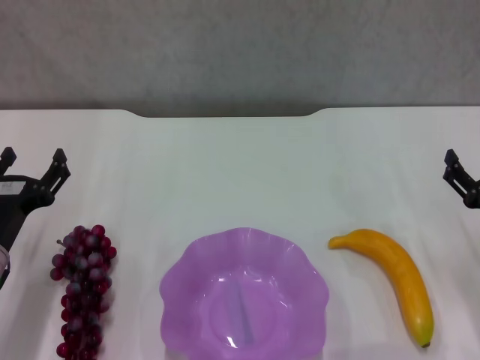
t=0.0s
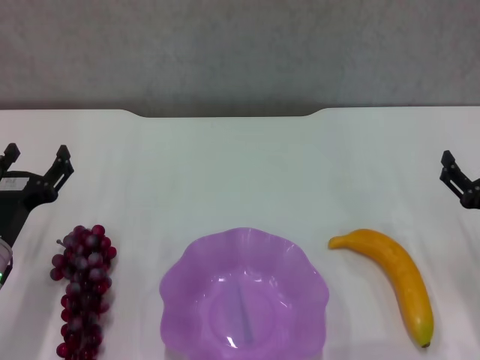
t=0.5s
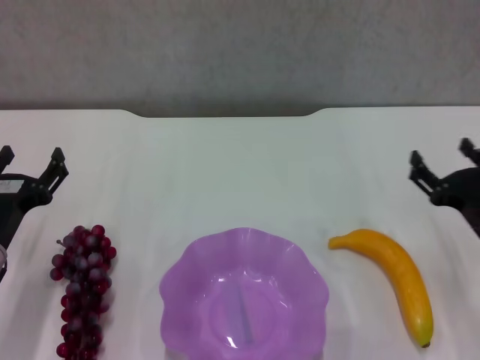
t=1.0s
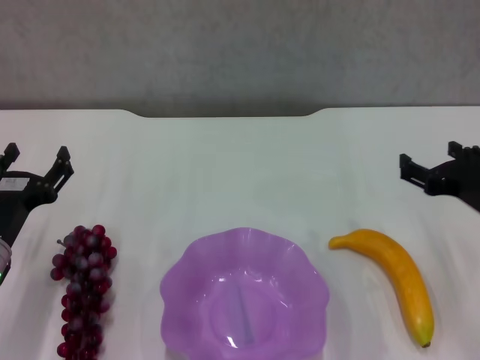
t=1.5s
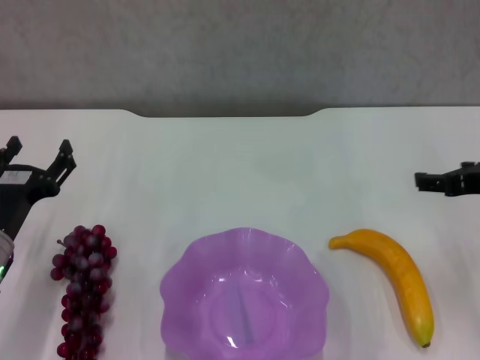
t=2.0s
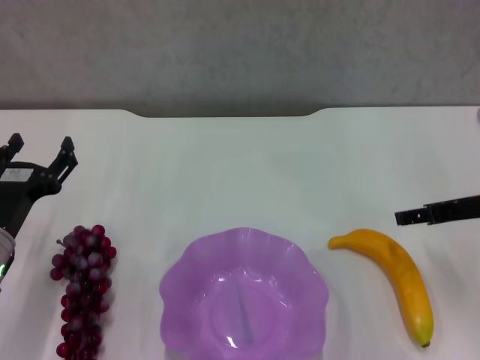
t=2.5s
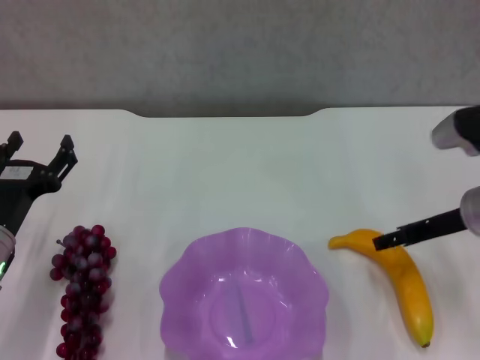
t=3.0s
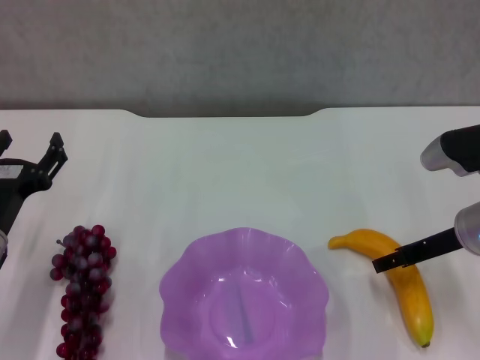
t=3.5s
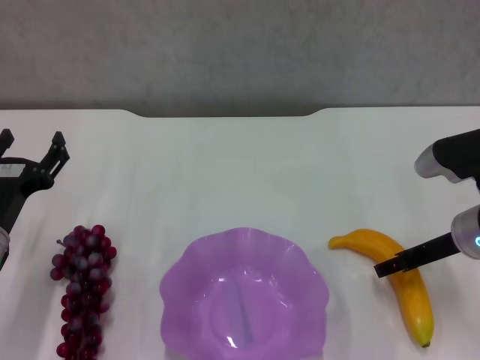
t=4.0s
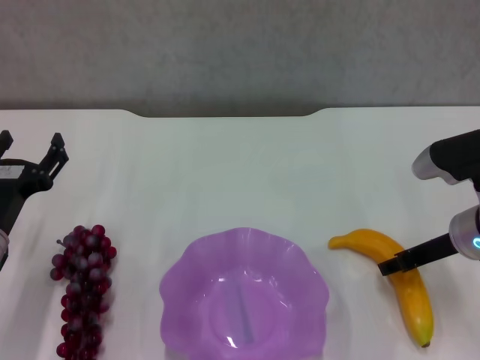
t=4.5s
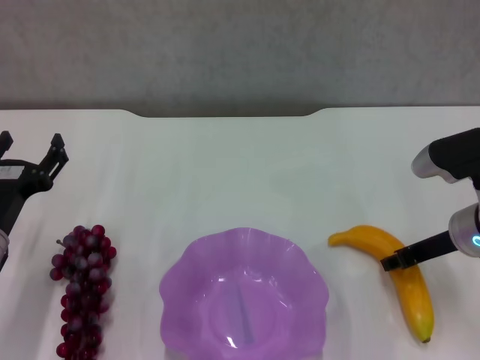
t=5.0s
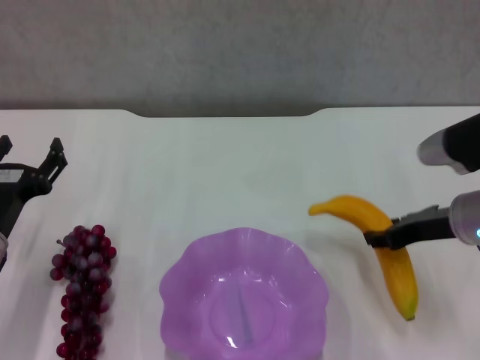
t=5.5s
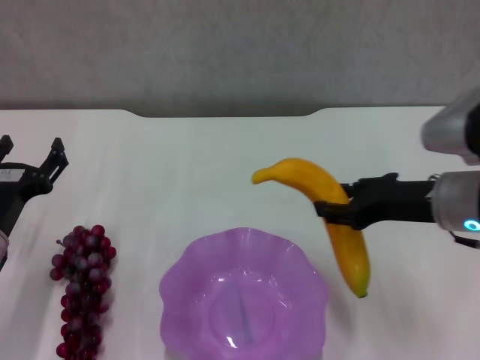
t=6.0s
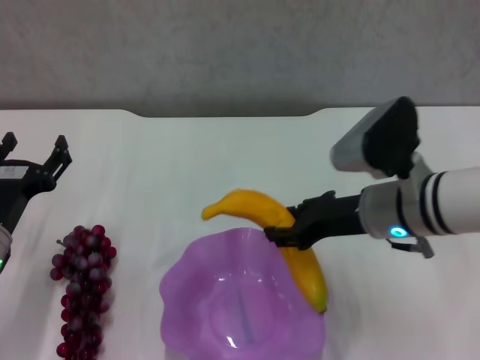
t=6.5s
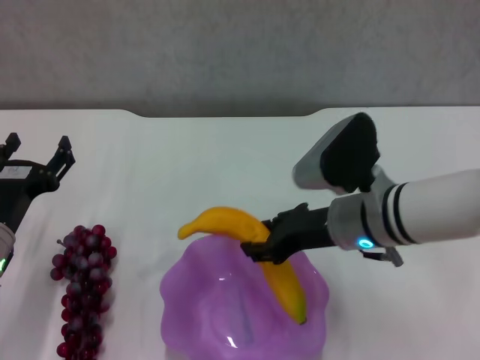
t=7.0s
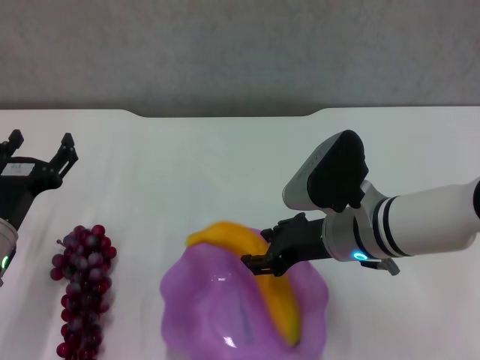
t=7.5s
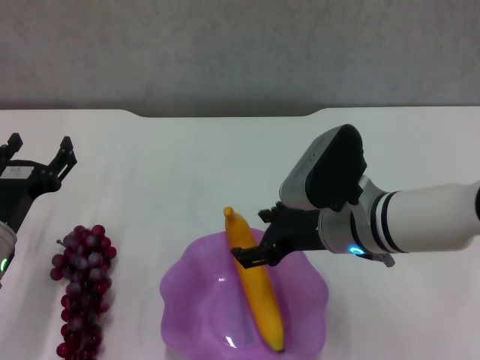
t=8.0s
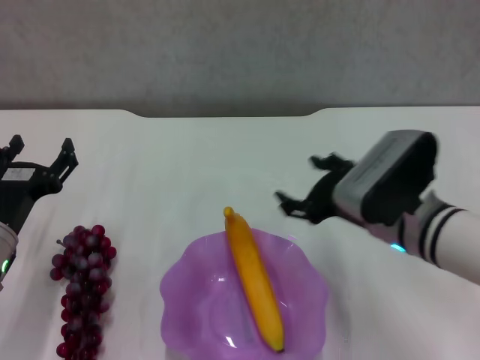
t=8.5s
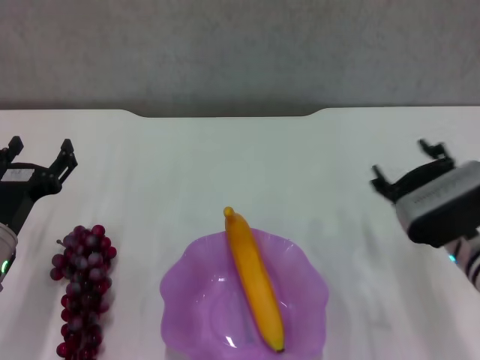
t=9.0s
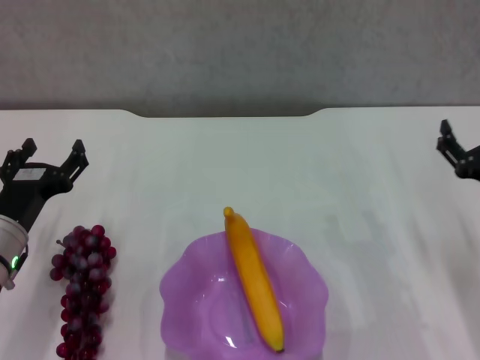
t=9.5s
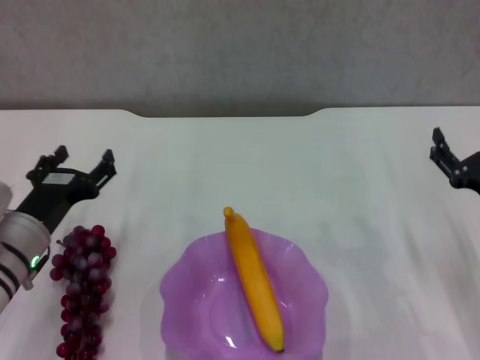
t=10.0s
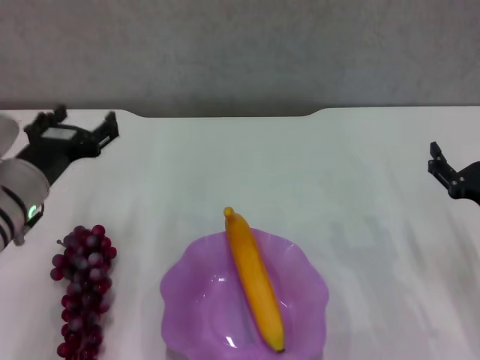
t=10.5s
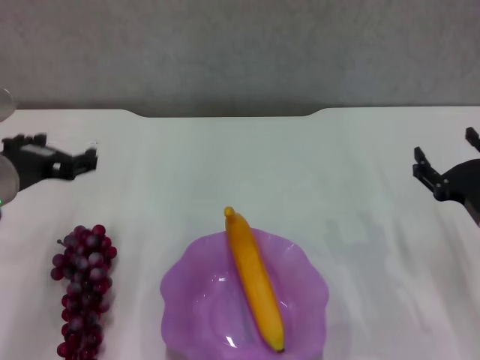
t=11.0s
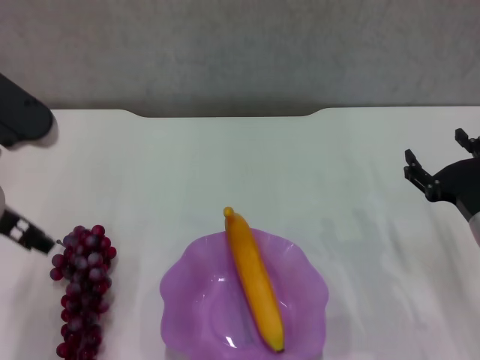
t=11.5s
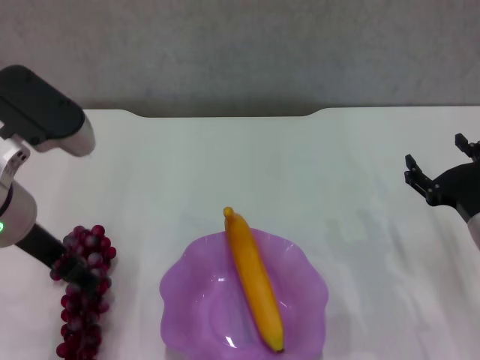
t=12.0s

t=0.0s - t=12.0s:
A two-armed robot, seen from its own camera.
Step, t=0.0s - t=4.5s: Grasp the banana with right gripper.
Step, t=5.0s - t=8.0s: Place the banana in the purple plate with right gripper.
t=0.0s - t=2.0s: The right gripper heads upward, covering some 10 cm.
t=2.0s - t=4.0s: The right gripper goes approximately 10 cm downward.
t=4.0s - t=6.0s: The right gripper heads upward, covering about 5 cm, and closes.
t=6.0s - t=8.0s: The right gripper travels to the left and downward by about 10 cm, and opens.
t=8.0s - t=10.0s: The right gripper heads to the right, covering some 15 cm.
t=10.0s - t=12.0s: The left gripper goes about 15 cm upward.

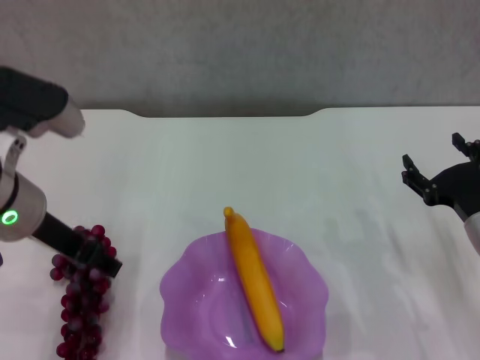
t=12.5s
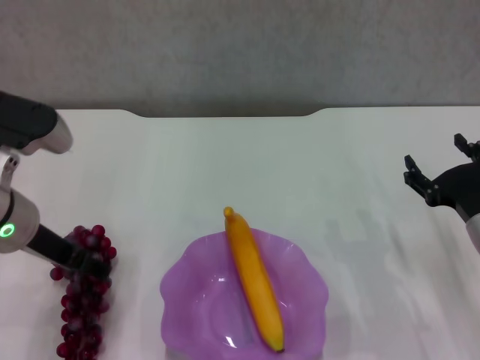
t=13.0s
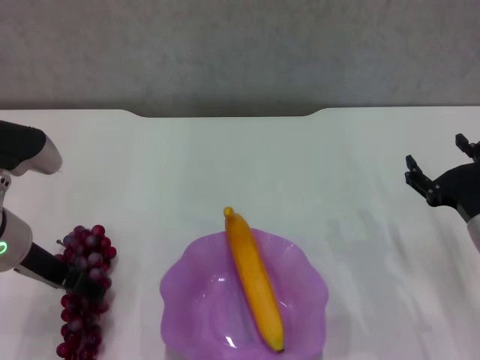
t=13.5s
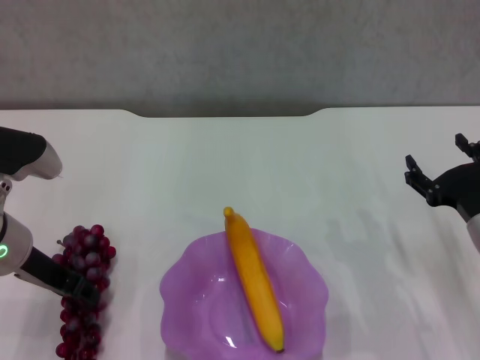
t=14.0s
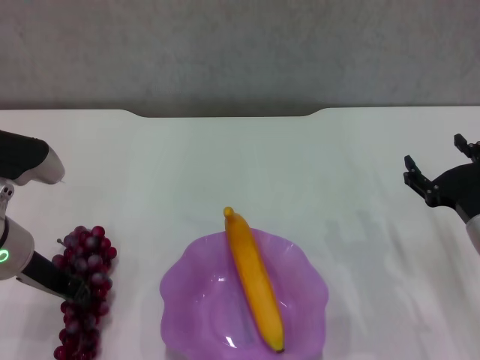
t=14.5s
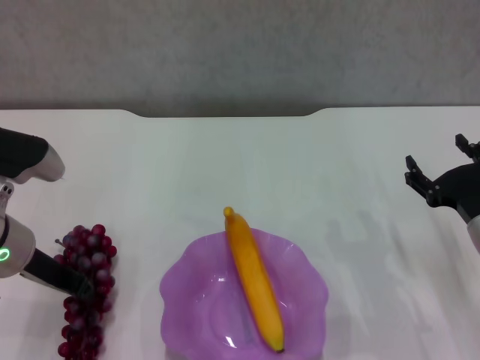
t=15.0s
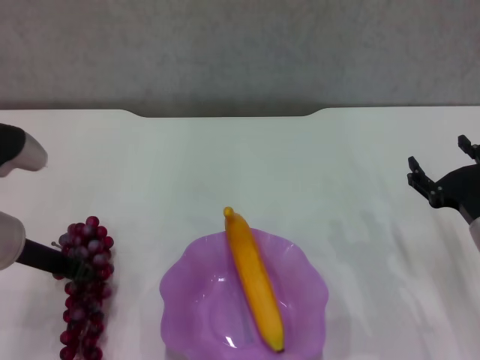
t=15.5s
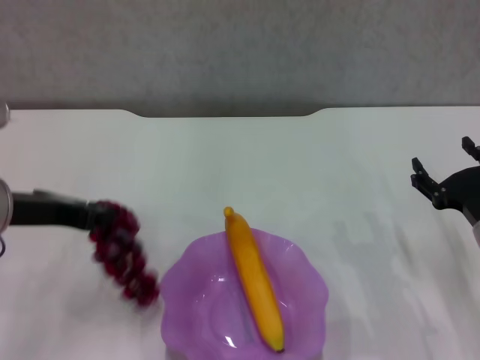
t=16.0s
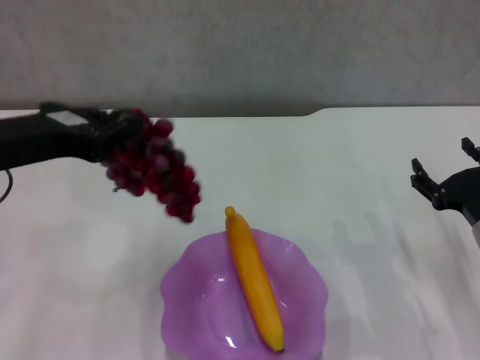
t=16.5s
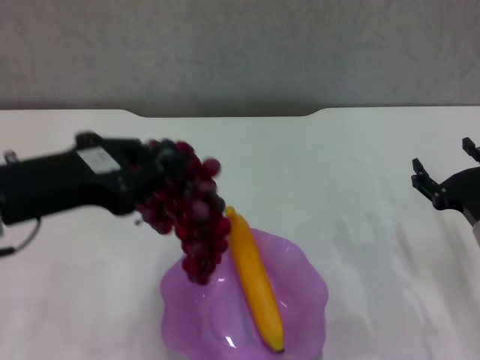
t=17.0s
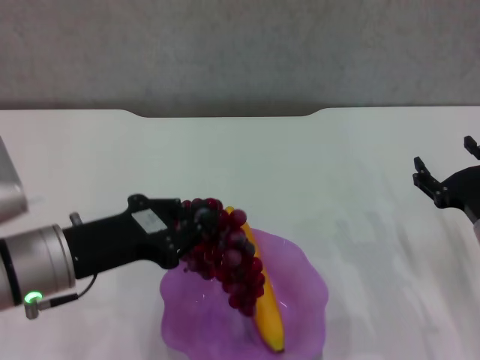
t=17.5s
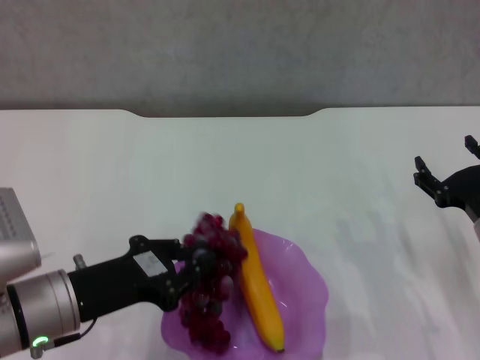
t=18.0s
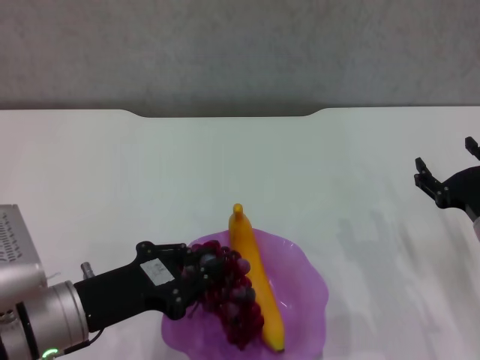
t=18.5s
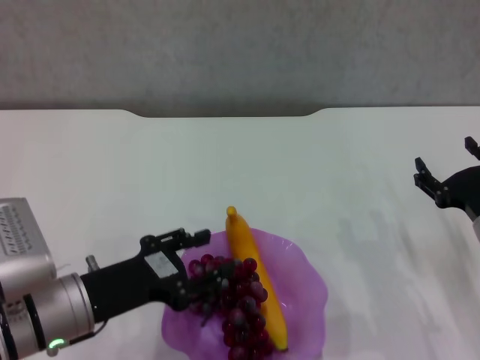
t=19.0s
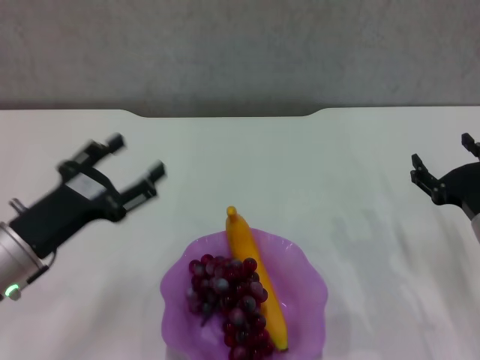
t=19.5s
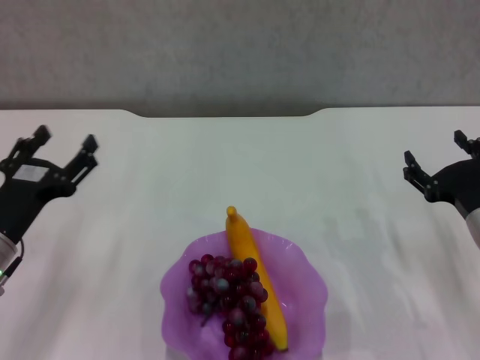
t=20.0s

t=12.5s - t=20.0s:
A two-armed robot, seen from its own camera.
Step, t=14.5s - t=18.5s: Place the grape in the purple plate with left gripper.
t=12.5s - t=14.5s: The left gripper moves downward, roughly 5 cm, and closes.
t=14.5s - t=16.5s: The left gripper goes roughly 10 cm upward.
t=16.5s - t=18.0s: The left gripper travels downward by about 15 cm.
t=18.0s - t=20.0s: The left gripper moves to the left, some 5 cm, and opens.

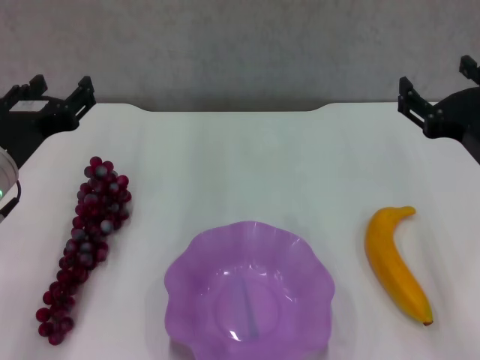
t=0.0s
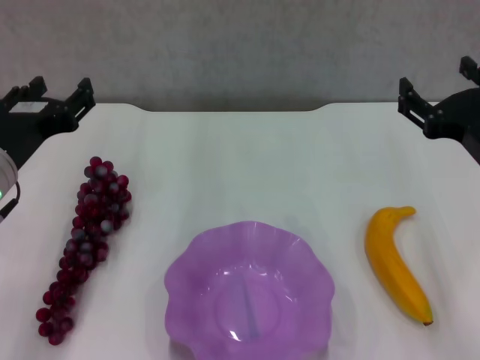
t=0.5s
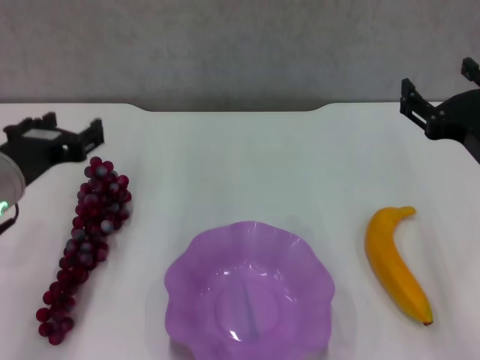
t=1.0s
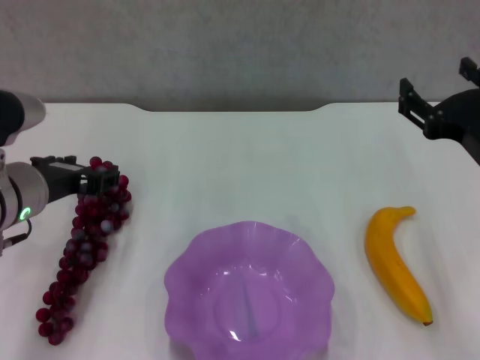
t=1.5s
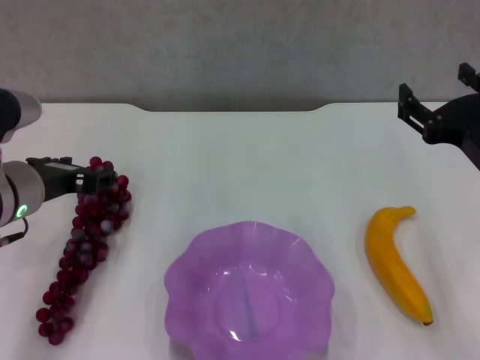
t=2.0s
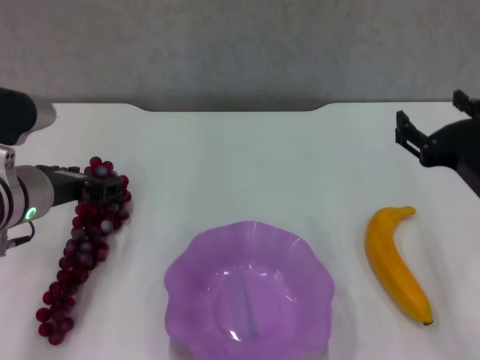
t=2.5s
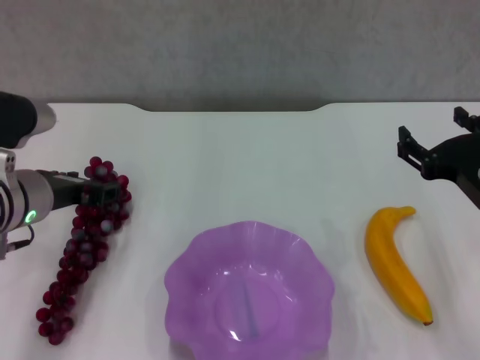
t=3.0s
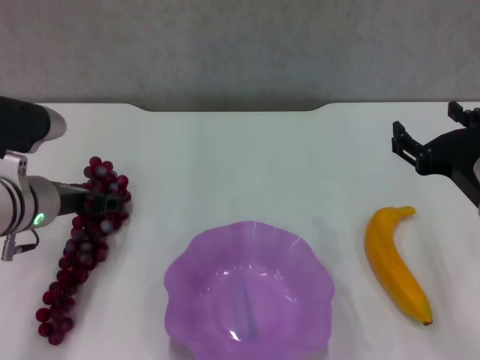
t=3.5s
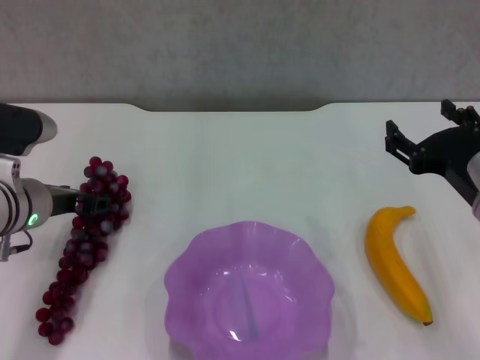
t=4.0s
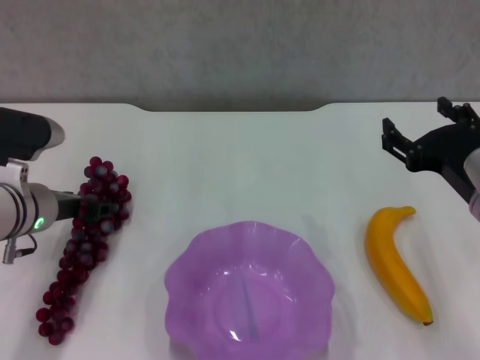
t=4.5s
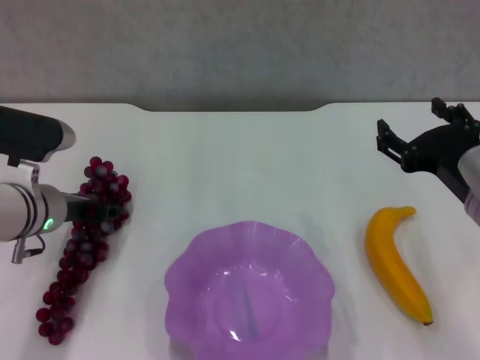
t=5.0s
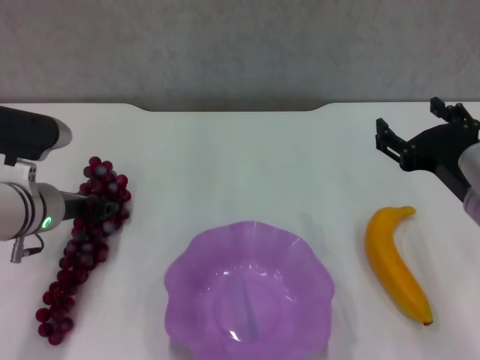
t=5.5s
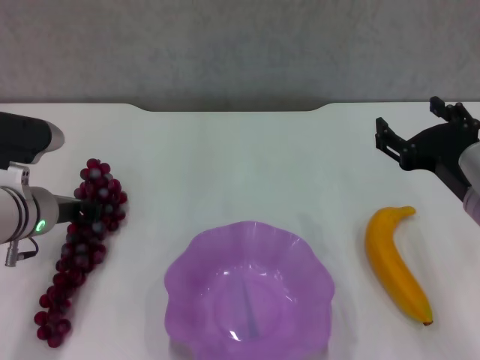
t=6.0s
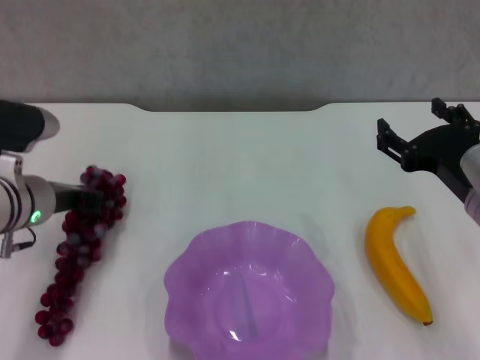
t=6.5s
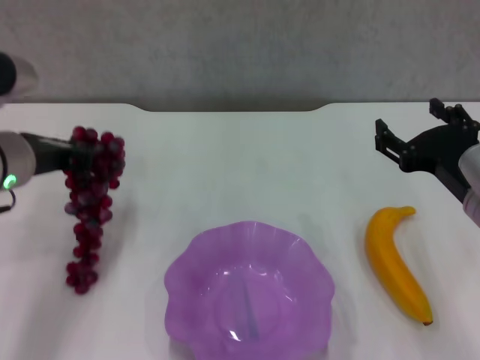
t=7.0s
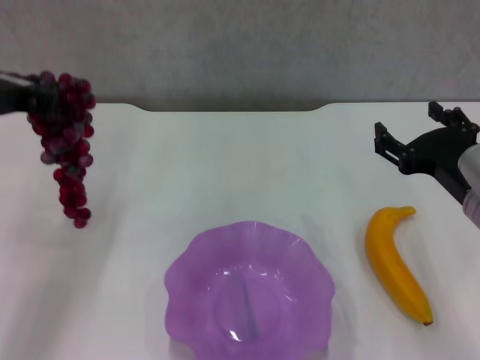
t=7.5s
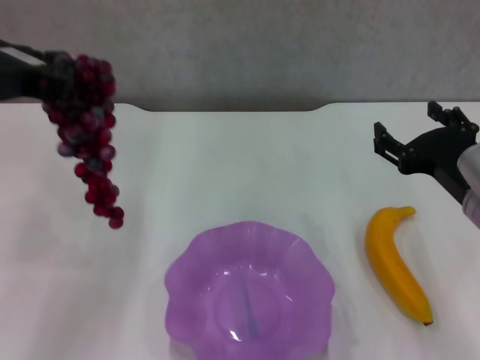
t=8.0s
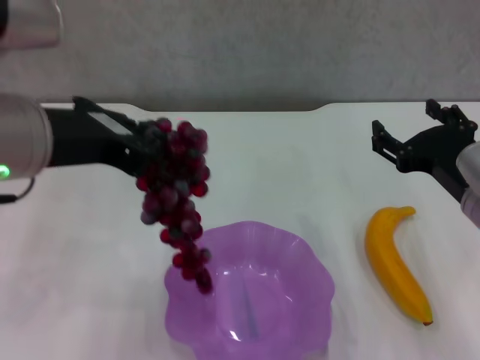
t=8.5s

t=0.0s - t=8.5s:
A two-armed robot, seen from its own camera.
Step, t=0.0s - t=6.0s: Grasp the grape with left gripper.
t=2.0s - t=4.0s: The grippers move only a little.
t=4.0s - t=6.5s: The left gripper closes up.
t=6.5s - t=8.5s: The left gripper shifts about 20 cm upward and backward.
